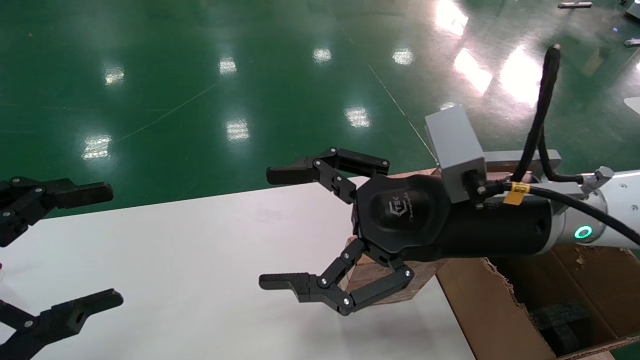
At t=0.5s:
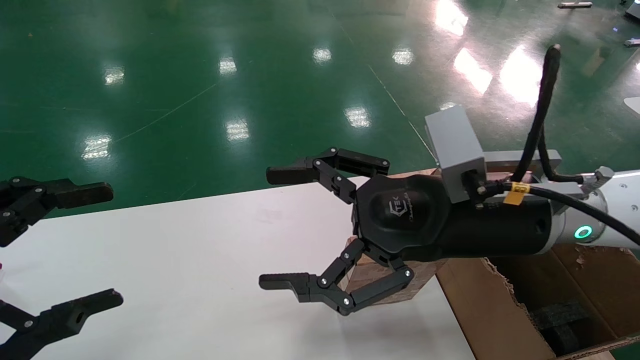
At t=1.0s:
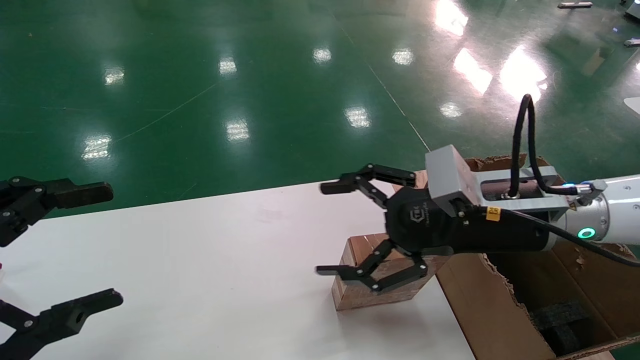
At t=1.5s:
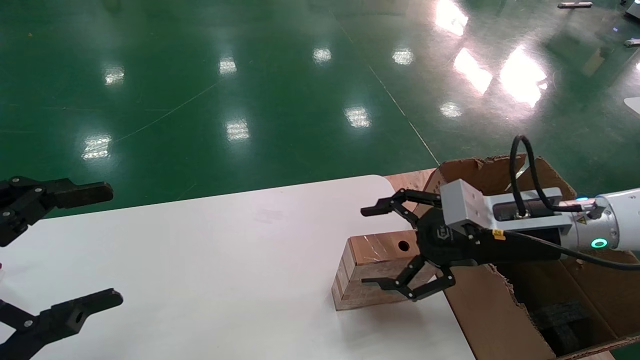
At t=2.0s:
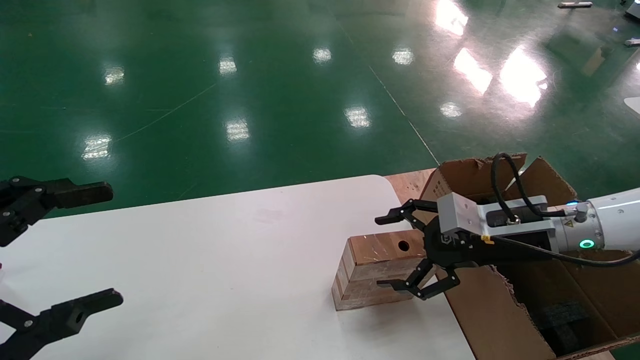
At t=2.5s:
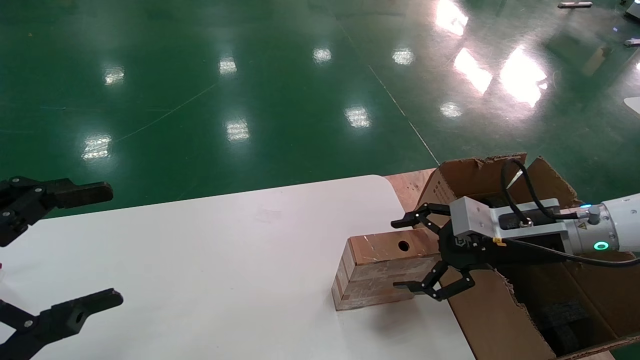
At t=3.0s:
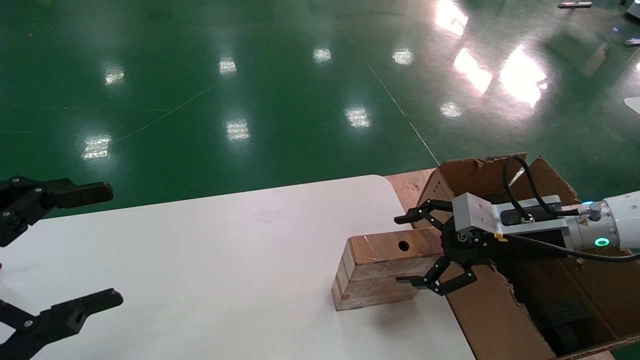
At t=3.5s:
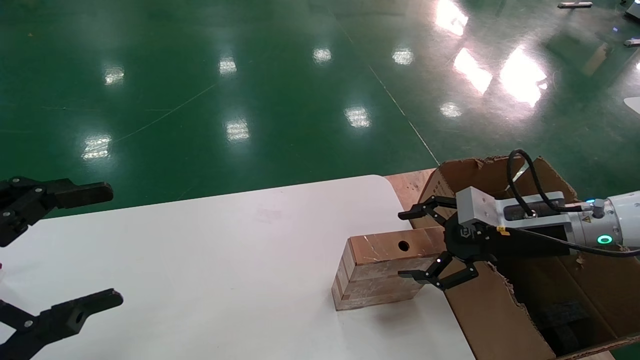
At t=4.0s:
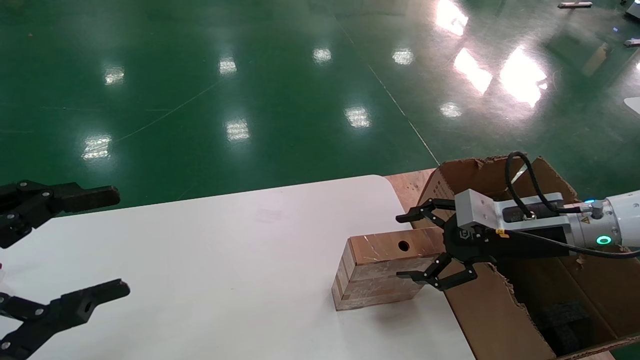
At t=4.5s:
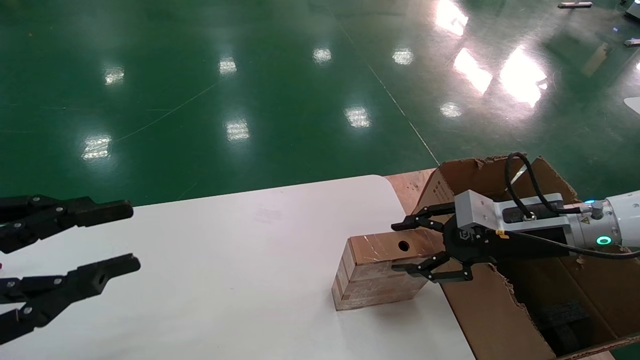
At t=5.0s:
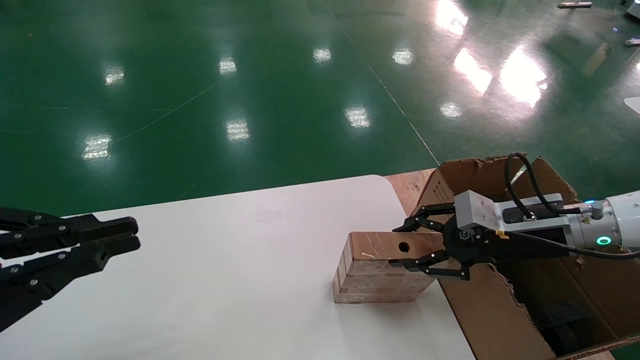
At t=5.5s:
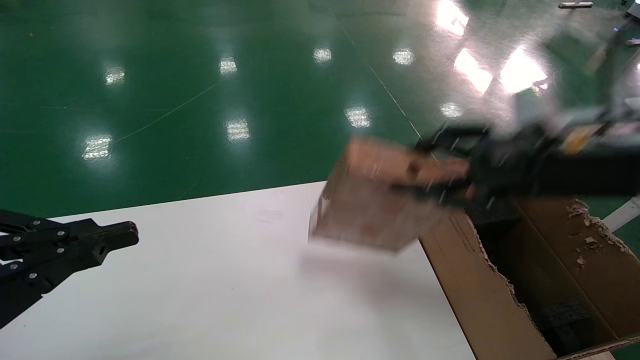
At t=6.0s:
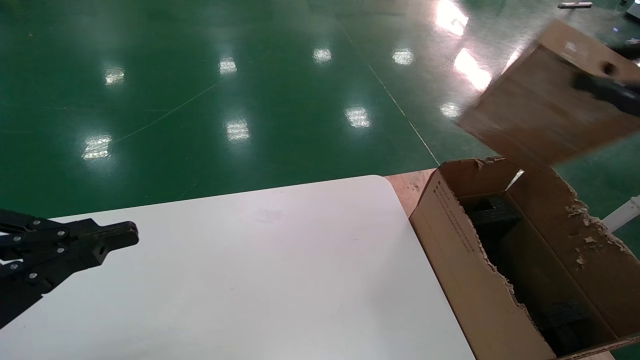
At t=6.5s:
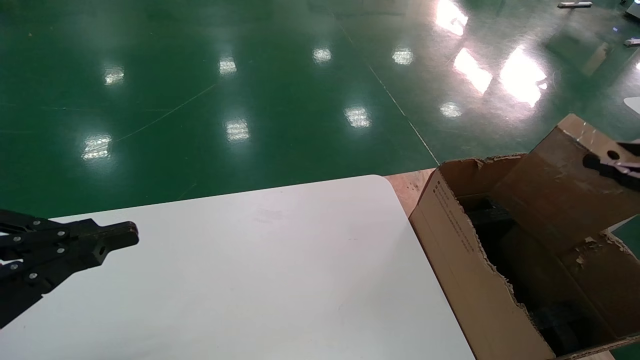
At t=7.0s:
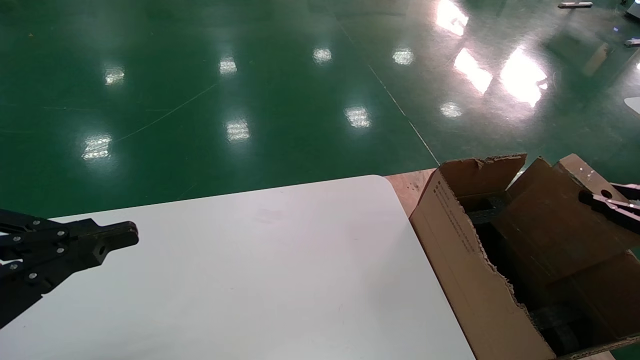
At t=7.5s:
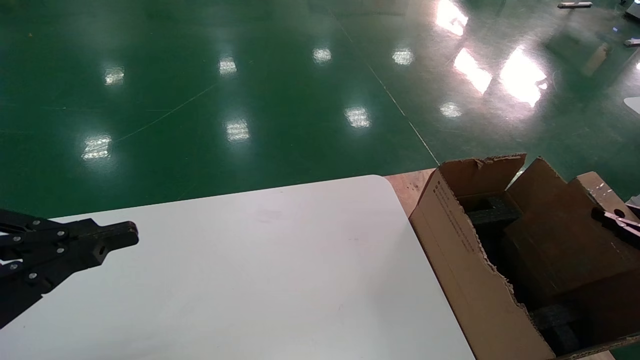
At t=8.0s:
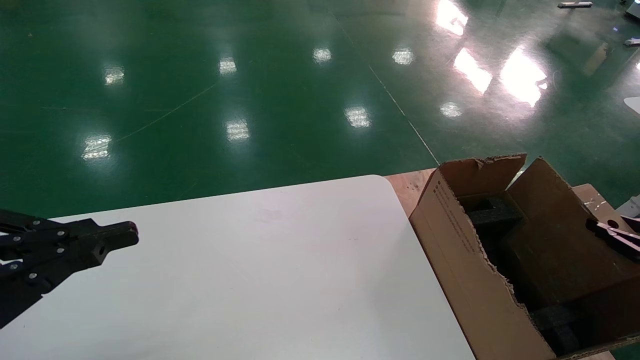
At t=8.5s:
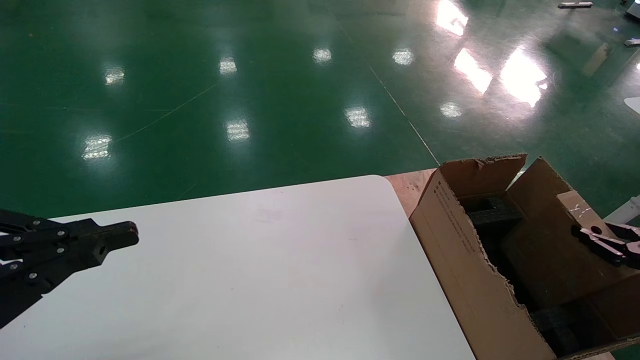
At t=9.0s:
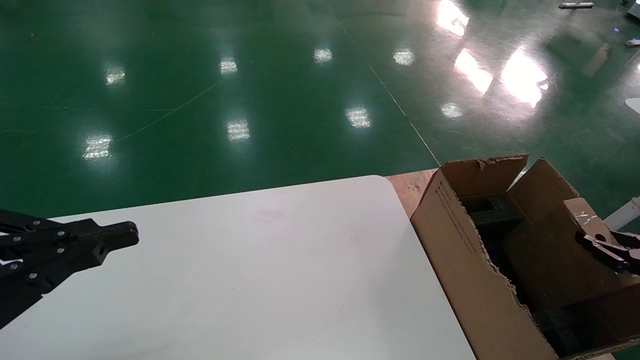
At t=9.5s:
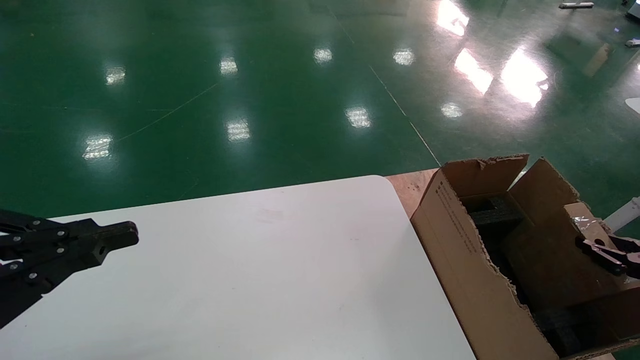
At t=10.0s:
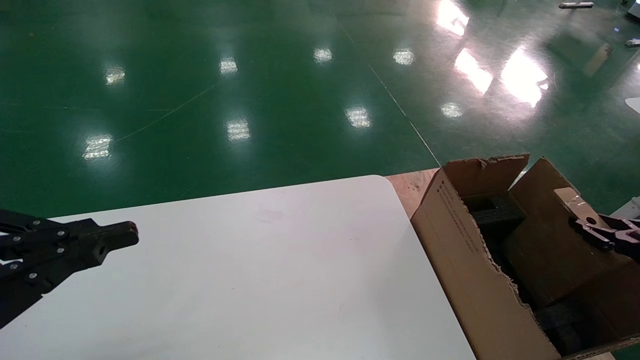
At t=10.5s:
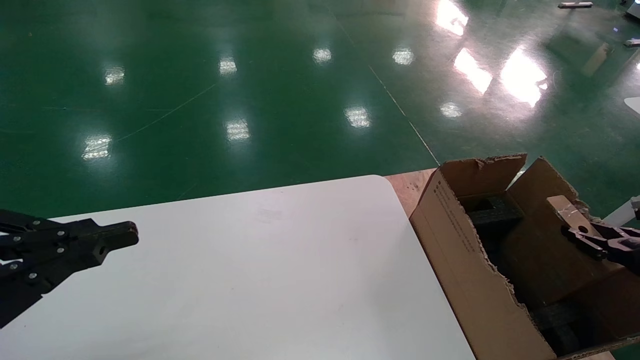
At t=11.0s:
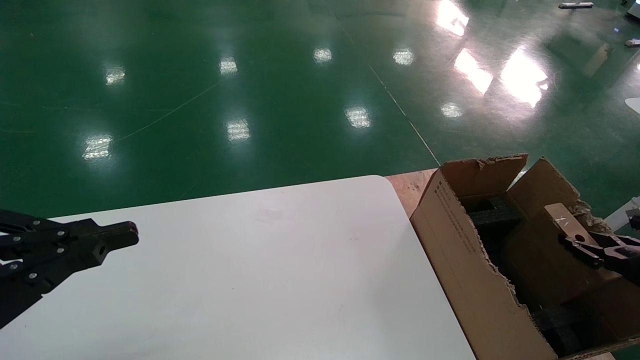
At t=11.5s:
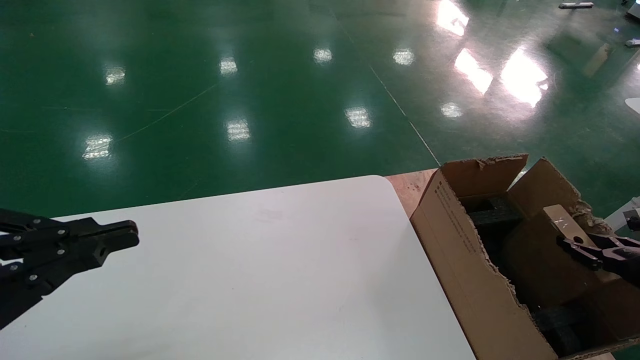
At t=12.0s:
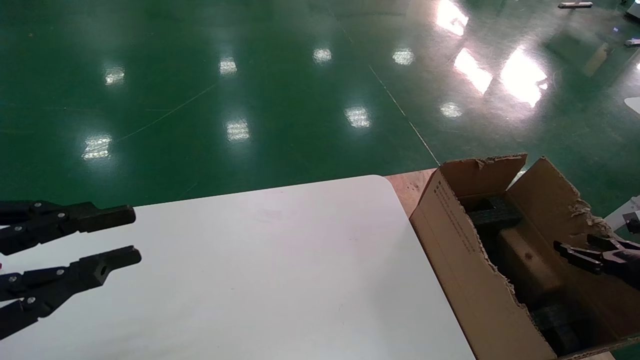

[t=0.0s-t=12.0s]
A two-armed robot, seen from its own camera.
Task of the whole recording: put the box on the table into the big box.
Step, t=1.0s to t=4.5s: Pick up the mouse and the power cord paper box.
Step, t=5.0s to t=12.0s: Place the mouse and the power cord paper box into the container.
t=0.0s to t=2.0s: The right gripper travels to the right, downward and forward by about 15 cm.
t=2.0s to t=4.0s: There are only small adjustments of the grippers.
t=4.0s to t=6.0s: The right gripper goes about 25 cm upward, backward and to the right, and closes up. Meanwhile the left gripper closes.
t=6.0s to t=8.0s: The right gripper travels downward and to the right by roughly 25 cm.
t=8.0s to t=10.0s: There are only small adjustments of the grippers.
t=10.0s to t=12.0s: The grippers make only small movements.

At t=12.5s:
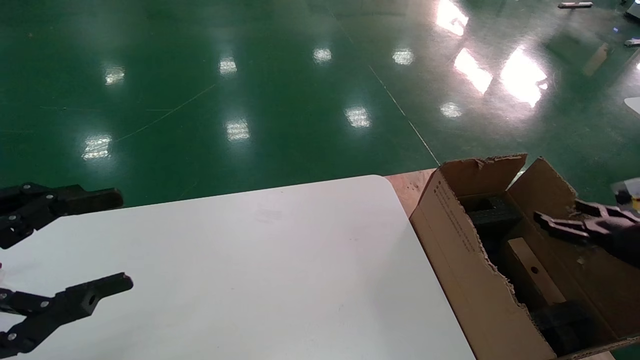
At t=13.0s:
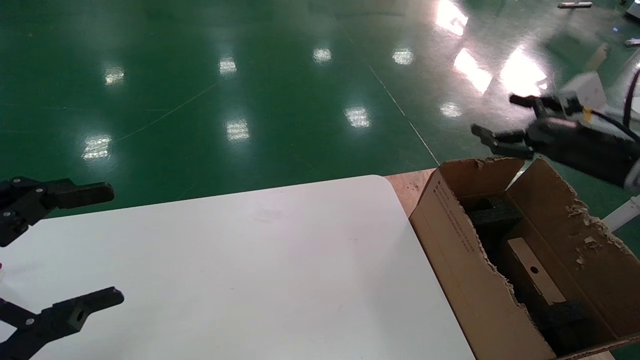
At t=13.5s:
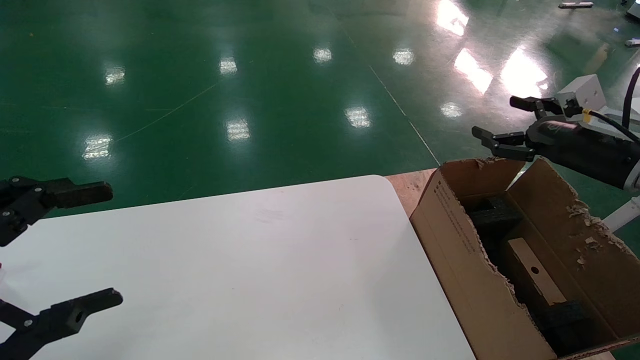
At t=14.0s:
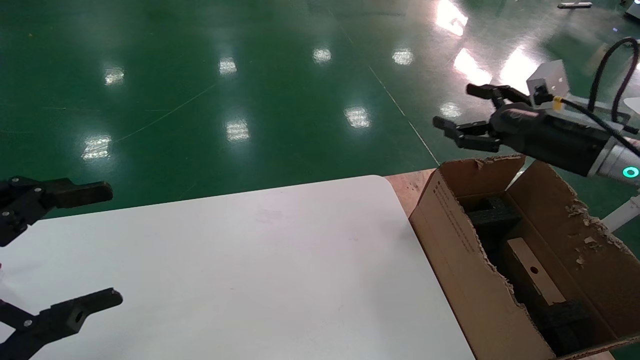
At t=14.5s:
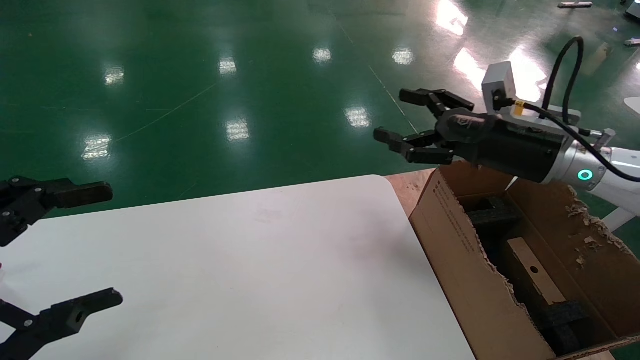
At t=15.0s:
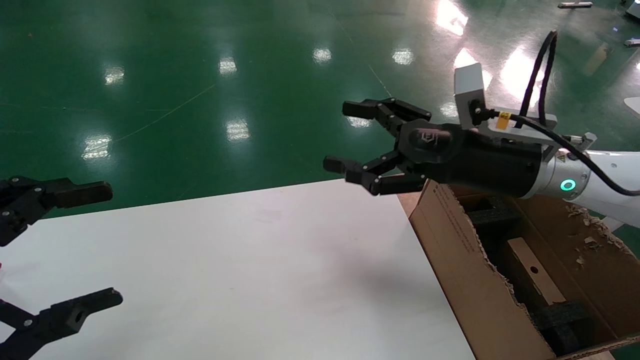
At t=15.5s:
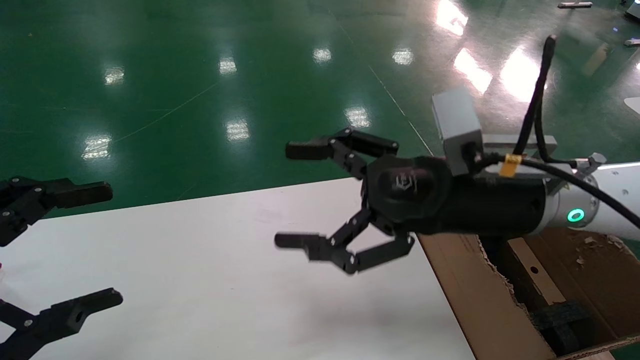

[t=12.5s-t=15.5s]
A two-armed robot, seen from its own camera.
Task of the whole recording: put the box on the table into the big box.
t=12.5s to t=14.0s: The left gripper opens its fingers. Meanwhile the right gripper moves upward, to the left and forward, some 20 cm.
t=14.0s to t=15.5s: The right gripper moves to the left, approximately 20 cm.
